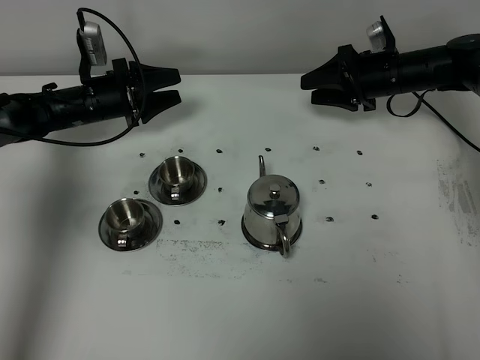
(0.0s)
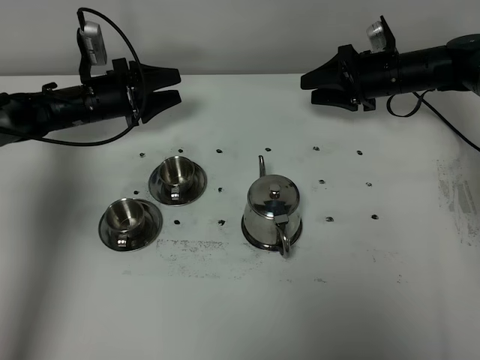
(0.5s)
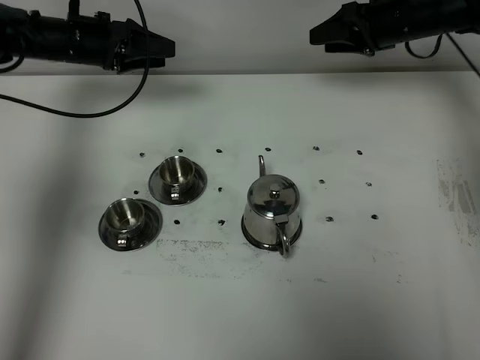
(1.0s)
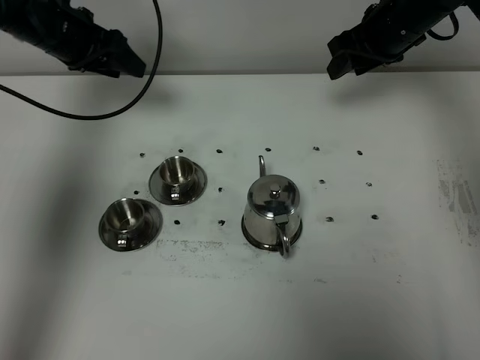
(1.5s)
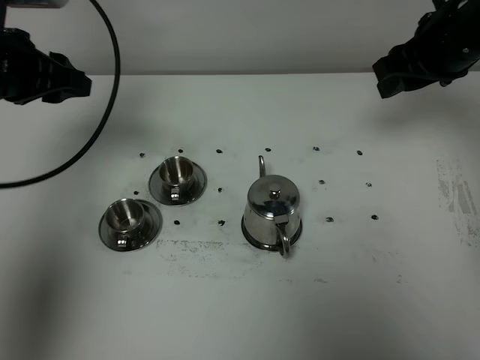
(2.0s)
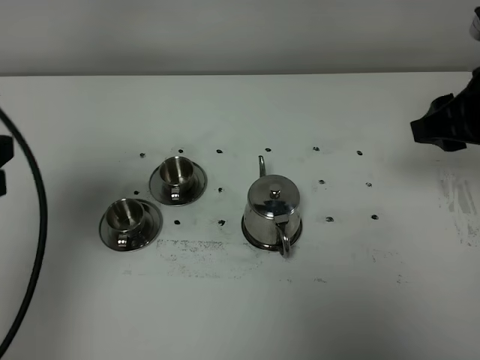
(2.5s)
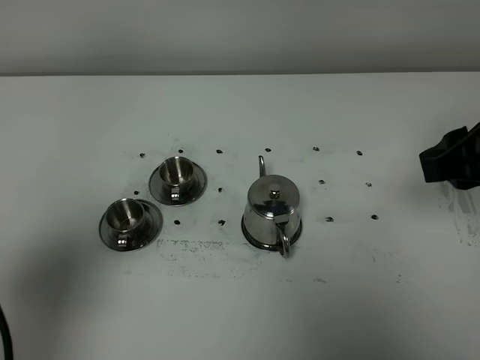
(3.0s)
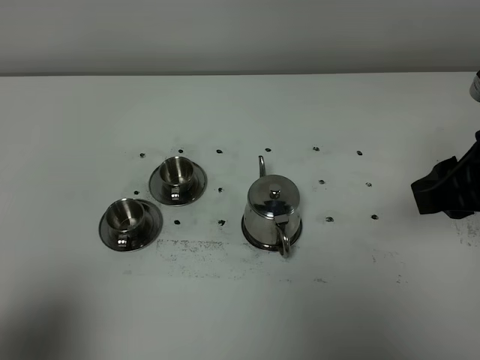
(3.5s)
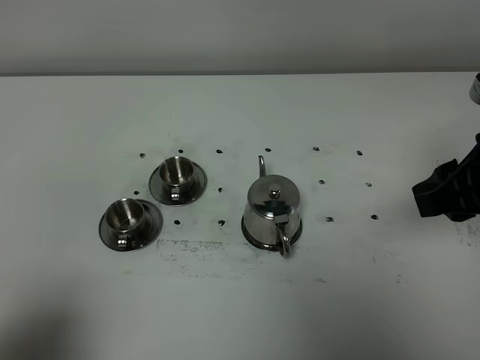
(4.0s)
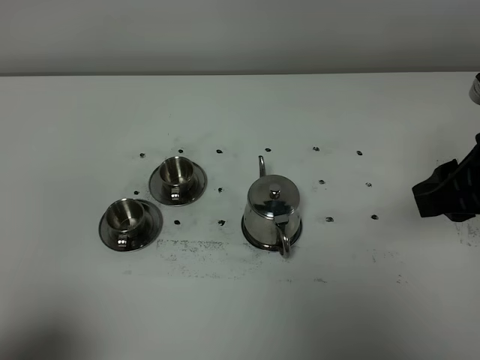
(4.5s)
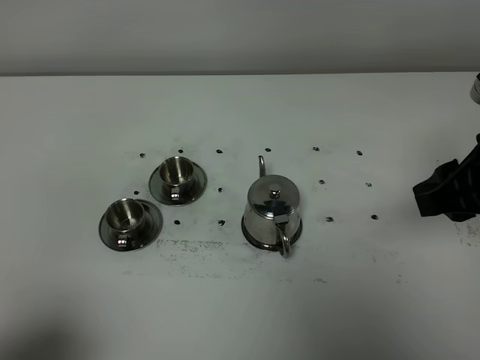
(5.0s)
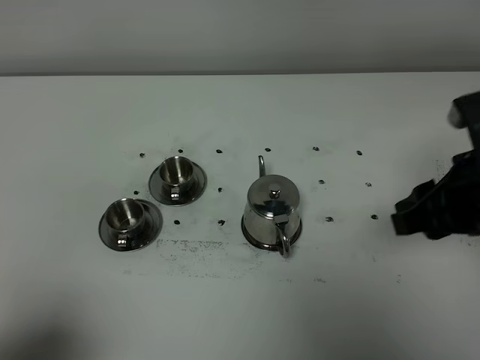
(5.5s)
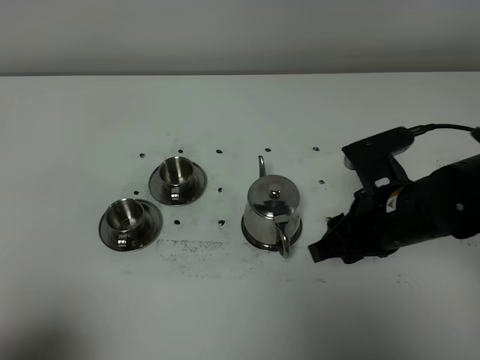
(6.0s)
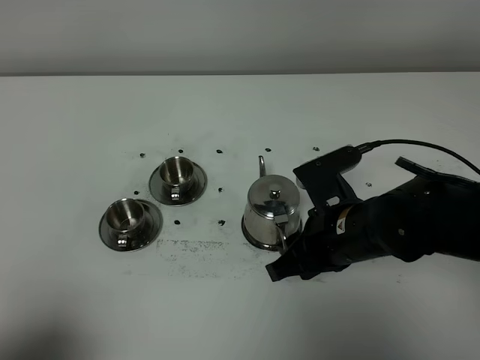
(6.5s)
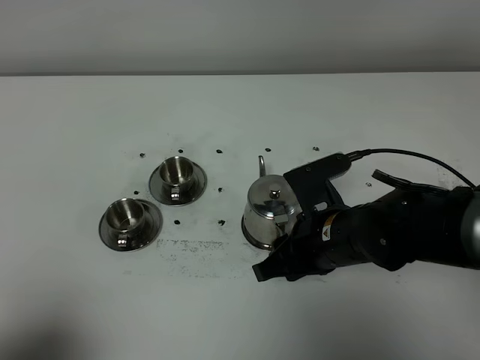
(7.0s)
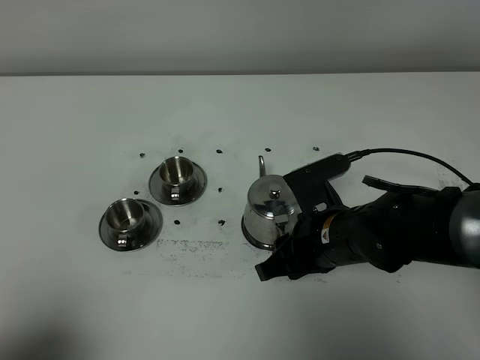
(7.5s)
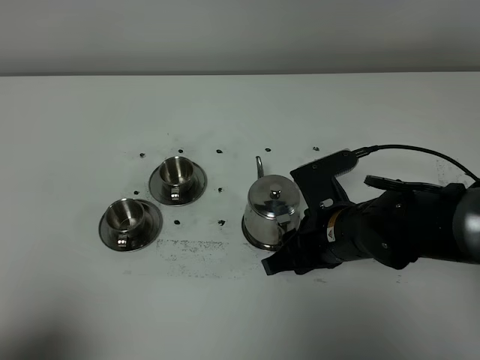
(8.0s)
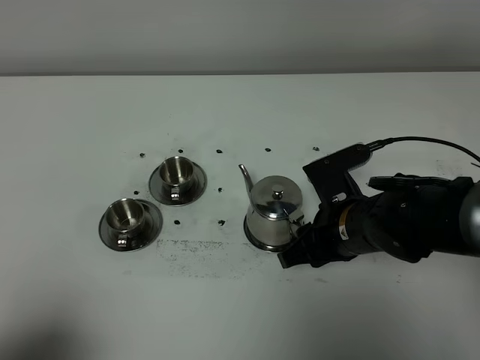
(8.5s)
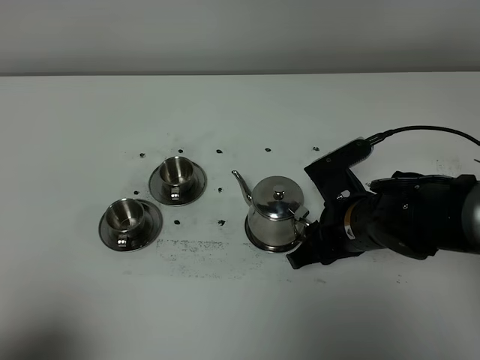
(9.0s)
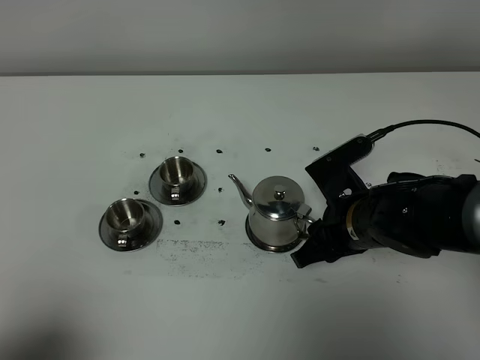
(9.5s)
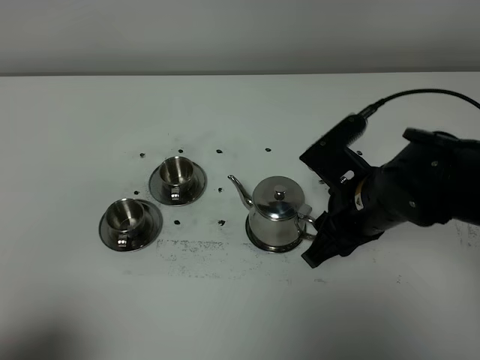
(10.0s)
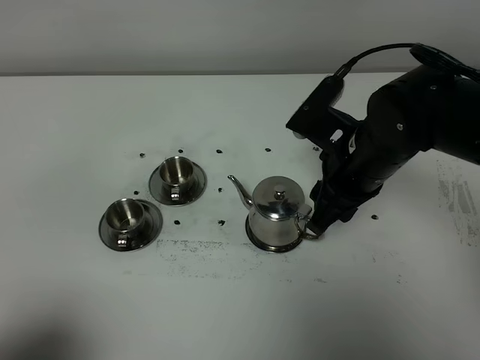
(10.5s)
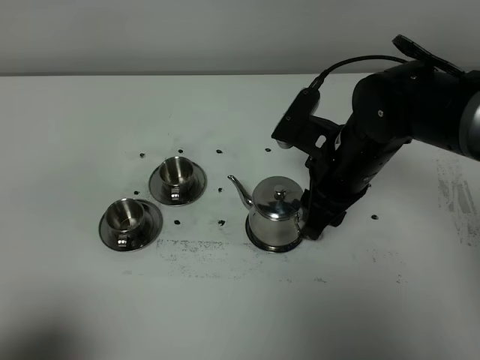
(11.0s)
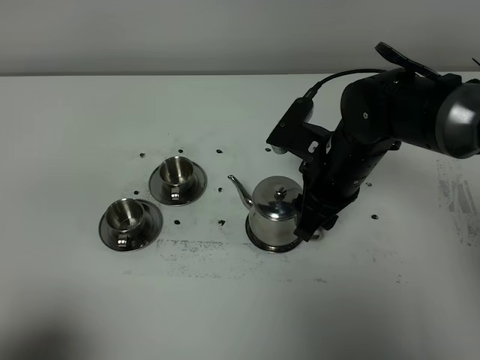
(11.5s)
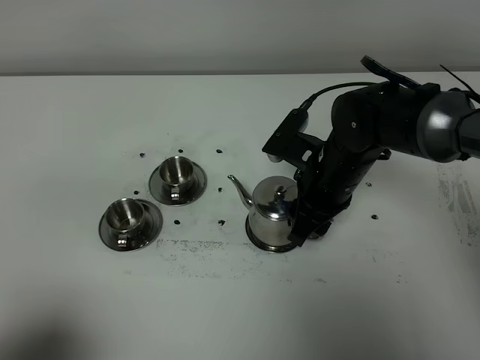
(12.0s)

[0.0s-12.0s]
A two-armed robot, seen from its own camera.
Task of the whole recording: grasp the stainless steel teapot and pour the tea into the two stainless steel teacups one by one, put the stainless steel teapot back in its original place.
0.0s to 2.0s: The grippers both shift upward and backward by roughly 25 cm. The left gripper closes.
2.0s to 4.0s: The right gripper is displaced backward by some 15 cm. The left gripper heads backward, covering approximately 35 cm.
4.0s to 6.0s: The right gripper is displaced downward and to the left by roughly 15 cm.
6.0s to 8.0s: The right gripper is displaced downward by about 5 cm.
8.0s to 10.0s: The right gripper heads upward, covering about 5 cm.
10.0s to 12.0s: The right gripper moves forward, approximately 5 cm.

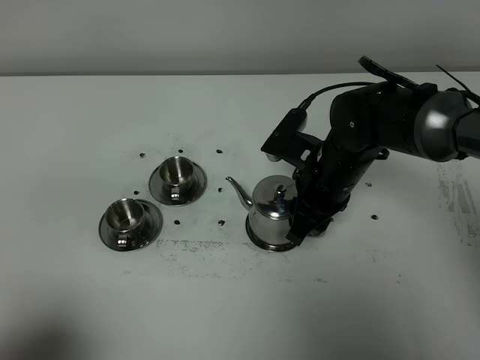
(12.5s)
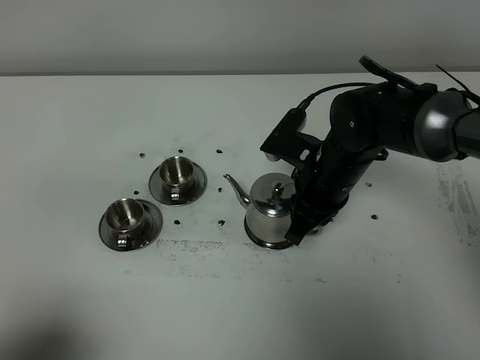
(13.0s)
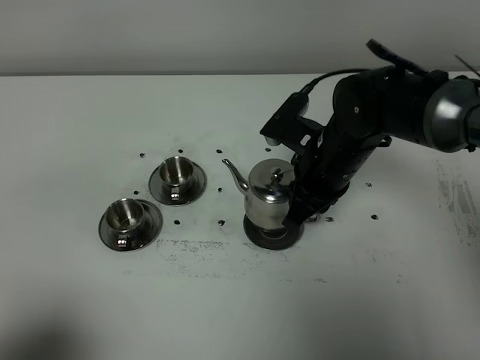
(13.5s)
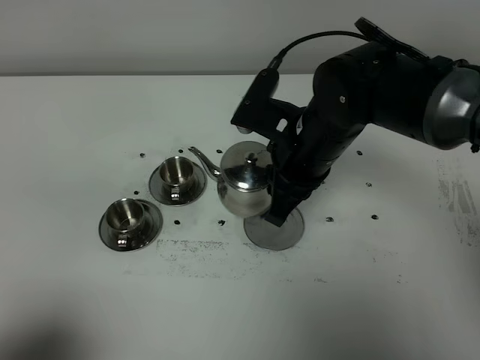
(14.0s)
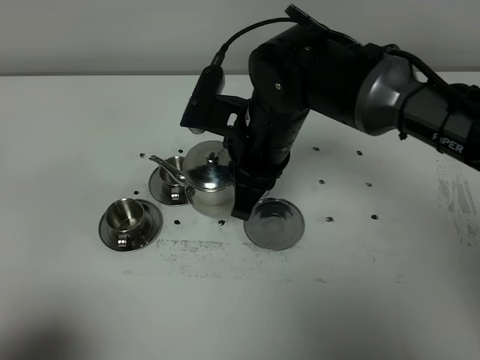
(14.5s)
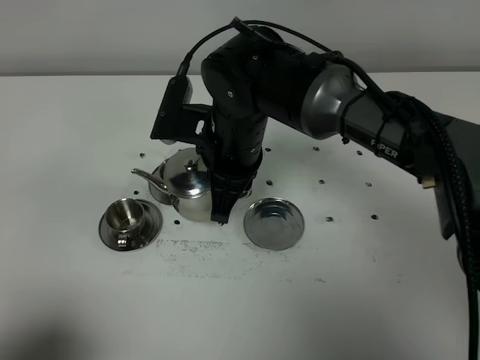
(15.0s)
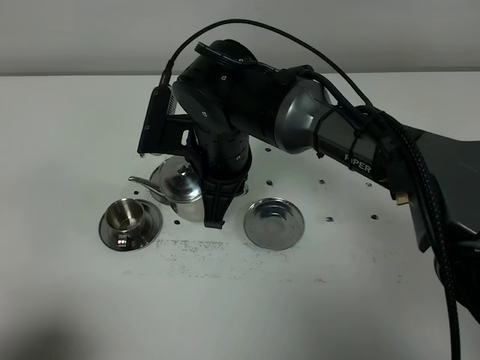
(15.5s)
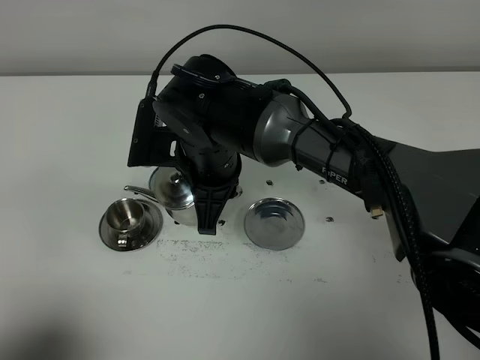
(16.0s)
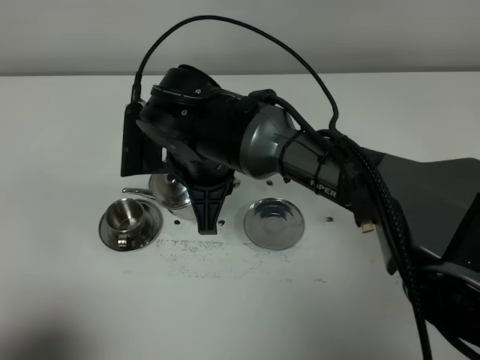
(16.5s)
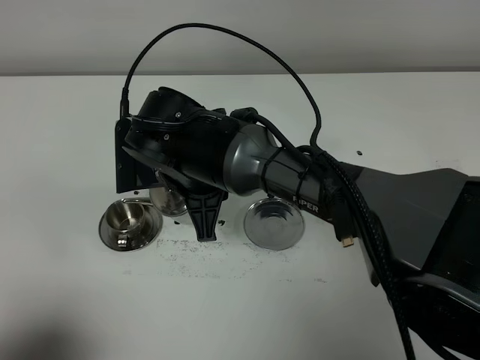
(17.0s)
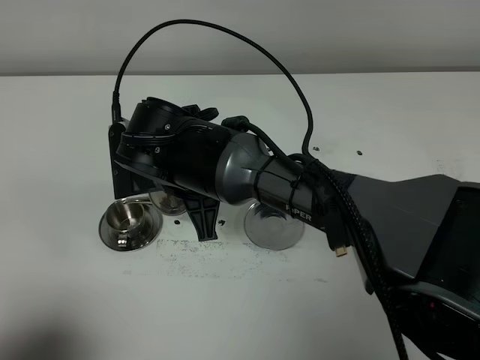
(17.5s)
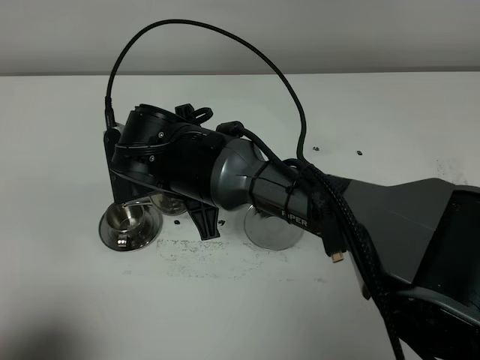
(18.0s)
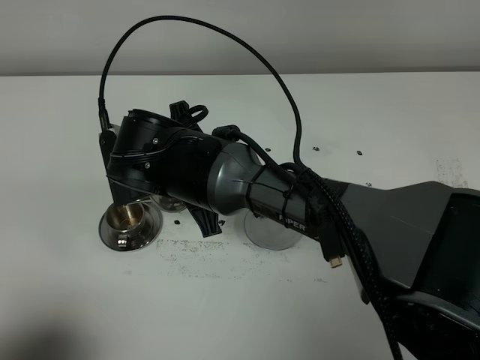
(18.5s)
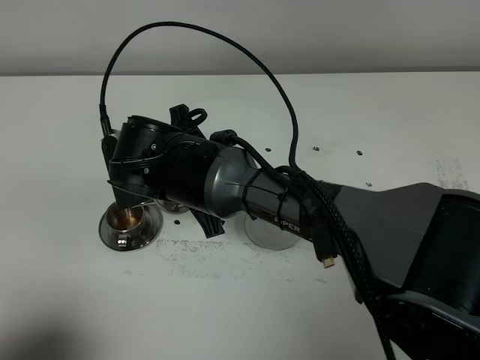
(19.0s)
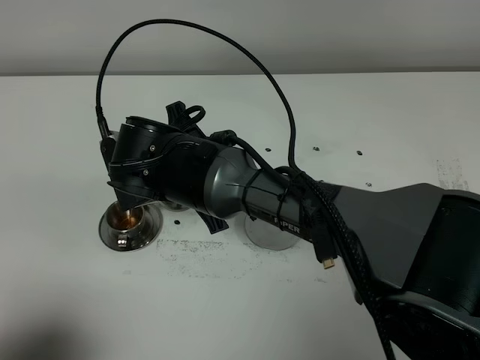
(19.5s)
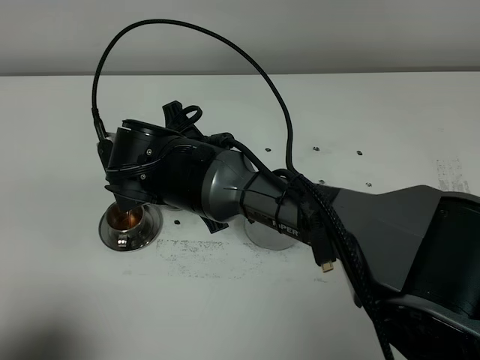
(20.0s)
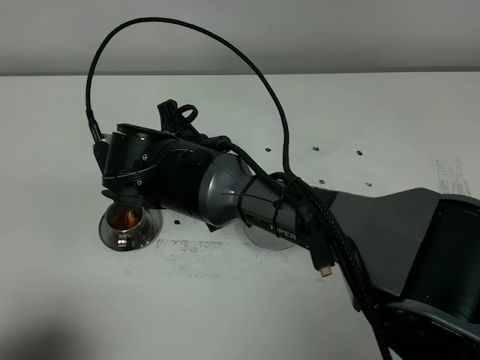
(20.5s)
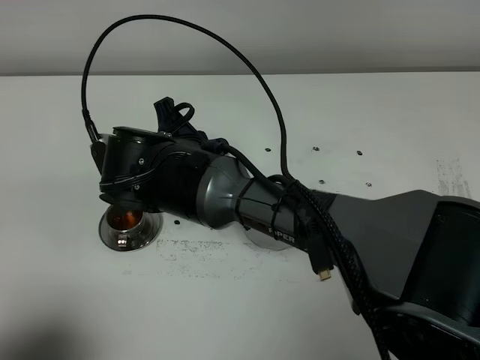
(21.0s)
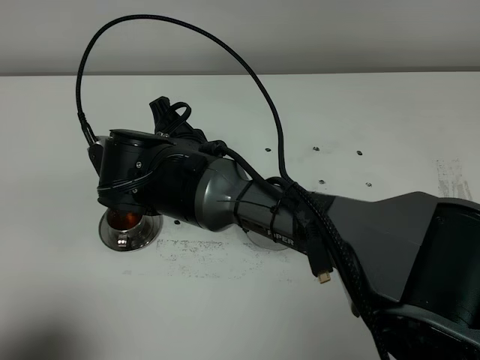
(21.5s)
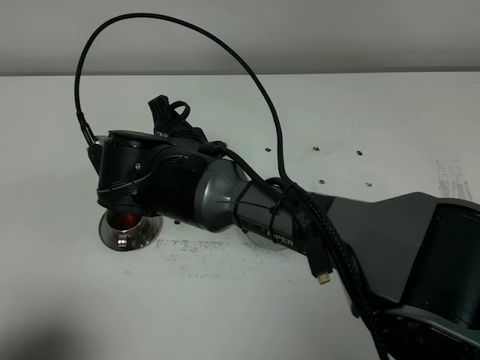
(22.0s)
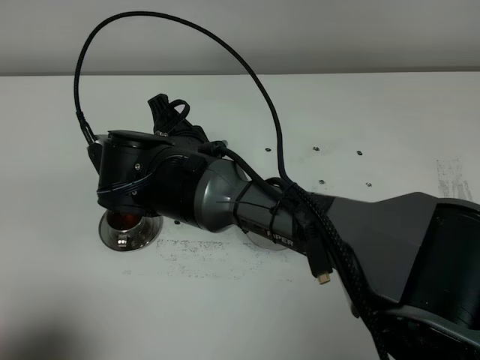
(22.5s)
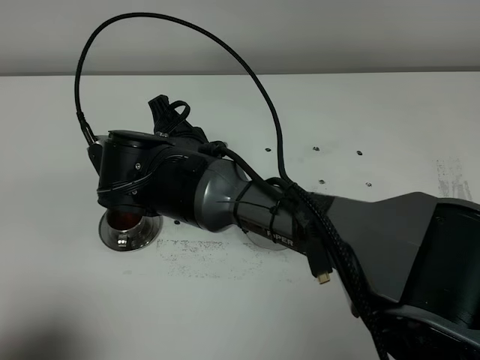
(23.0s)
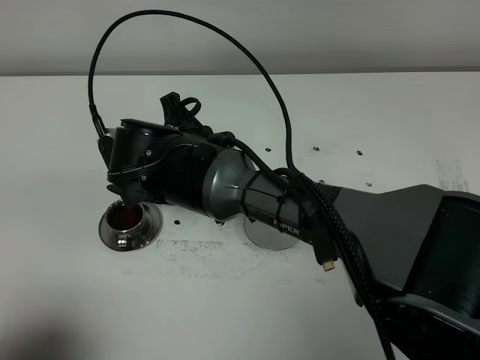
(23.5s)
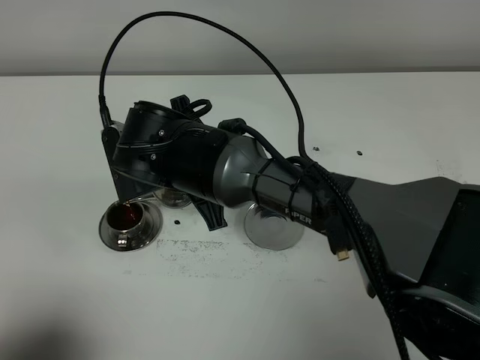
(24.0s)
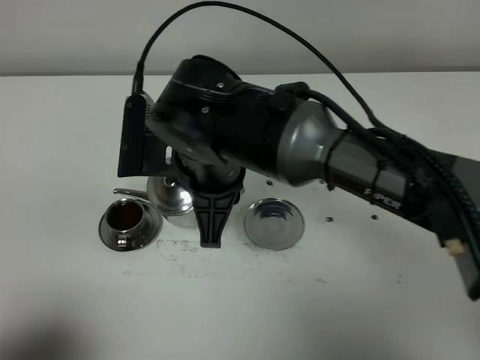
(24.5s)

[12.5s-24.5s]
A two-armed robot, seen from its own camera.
Task of the whole recording: grasp the stainless steel teapot and pour the tea into the two stainless steel teacups one by one, put the stainless steel teapot back in its original place.
12.5s to 14.5s: The right gripper shifts roughly 10 cm to the left and upward, and closes up.
14.5s to 16.5s: The right gripper travels to the left by about 5 cm.
18.5s to 22.5s: The grippers move only a little.
22.5s to 24.5s: The right gripper ends up approximately 5 cm from where it was.

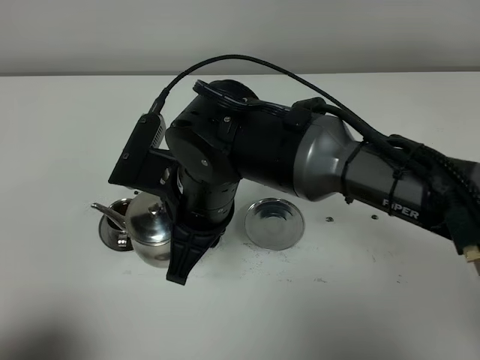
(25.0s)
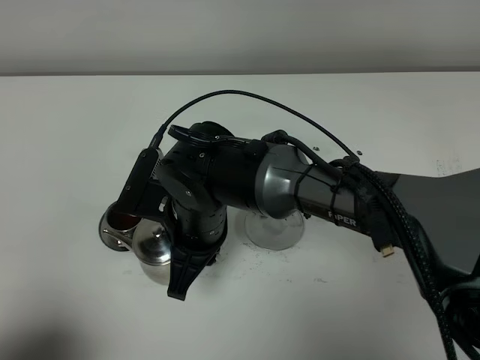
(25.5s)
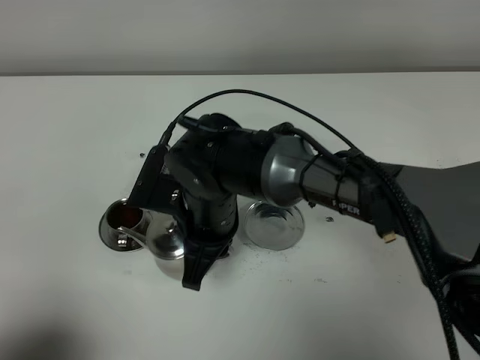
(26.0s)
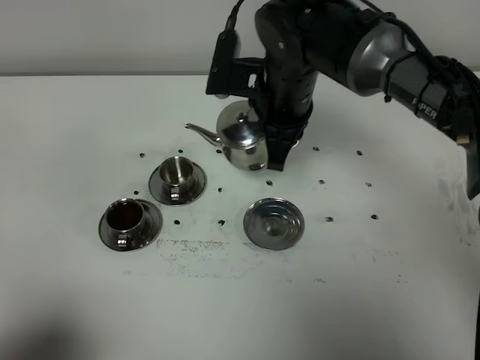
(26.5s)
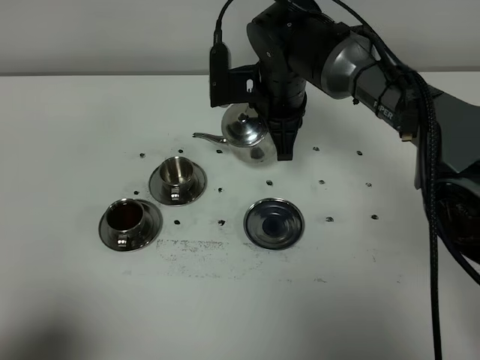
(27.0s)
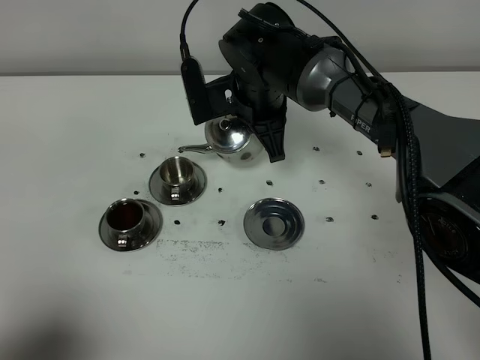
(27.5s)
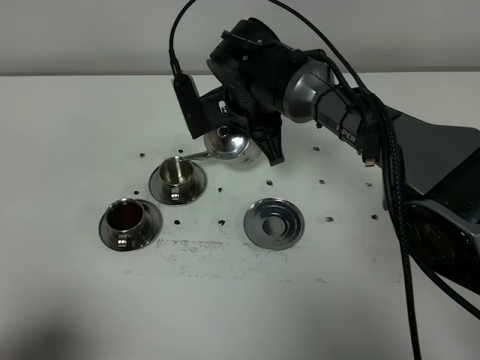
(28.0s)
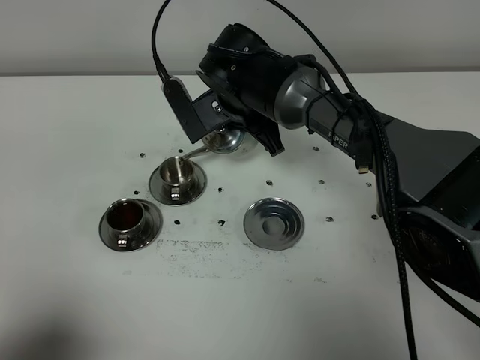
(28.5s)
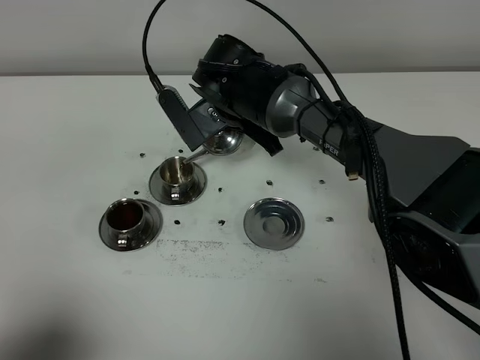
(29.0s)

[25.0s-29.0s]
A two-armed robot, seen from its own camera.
Task of the whole recording: grasp the stainless steel teapot and pour the tea into the two stainless steel teacups one by one, put the stainless steel teapot back in its original place.
25.0s to 27.0s: The right gripper shifts roughly 20 cm forward and to the right.
27.0s to 29.0s: The right gripper heads to the left, covering roughly 5 cm.
